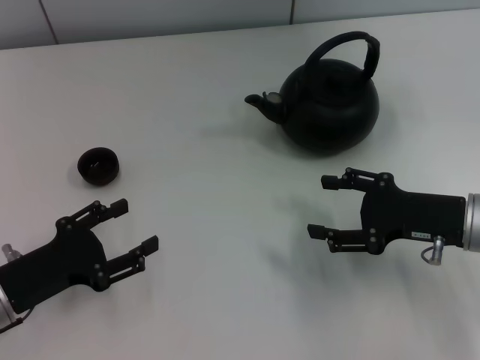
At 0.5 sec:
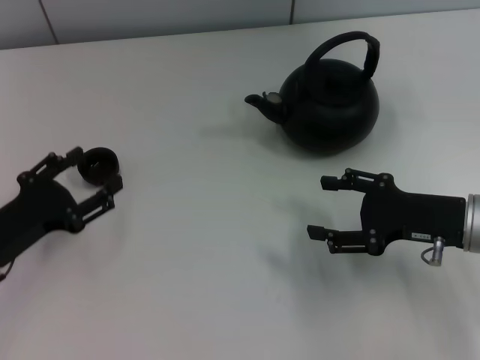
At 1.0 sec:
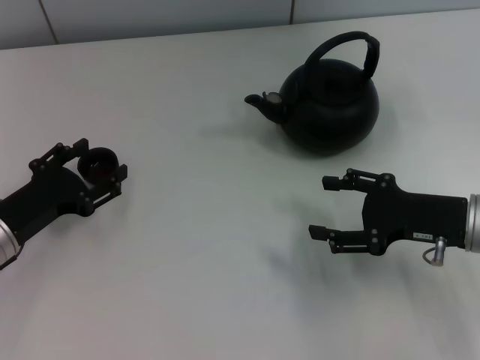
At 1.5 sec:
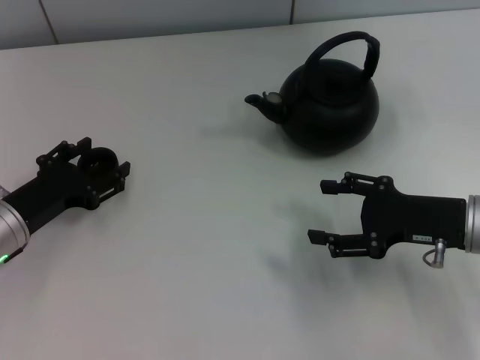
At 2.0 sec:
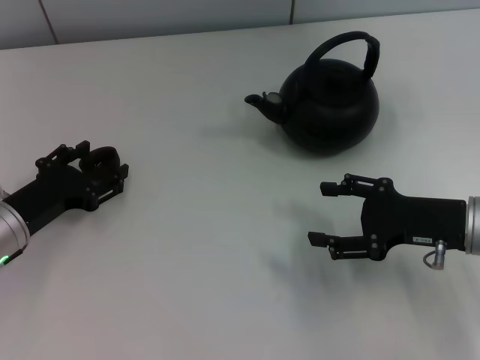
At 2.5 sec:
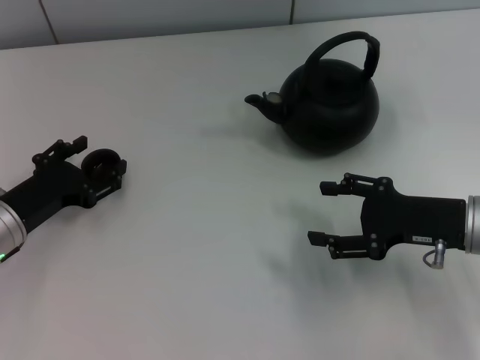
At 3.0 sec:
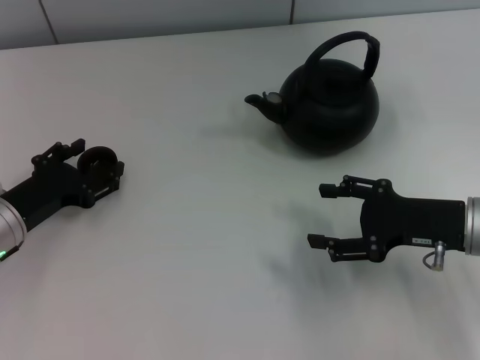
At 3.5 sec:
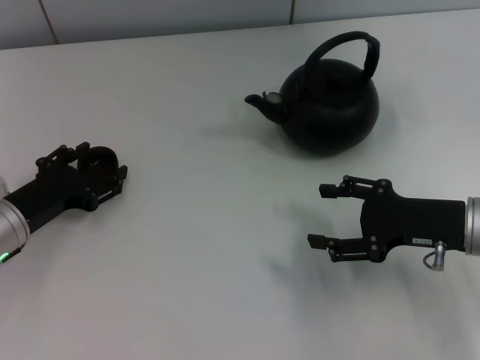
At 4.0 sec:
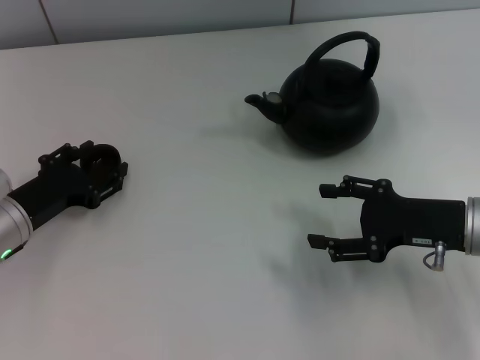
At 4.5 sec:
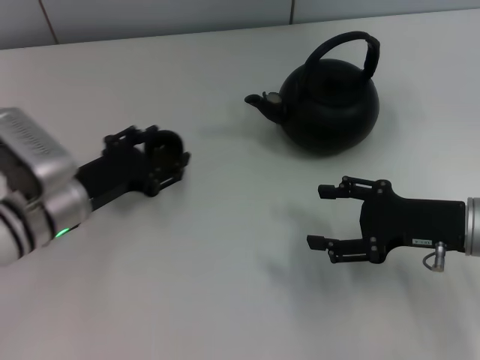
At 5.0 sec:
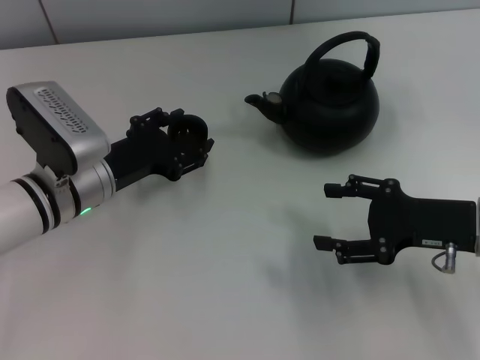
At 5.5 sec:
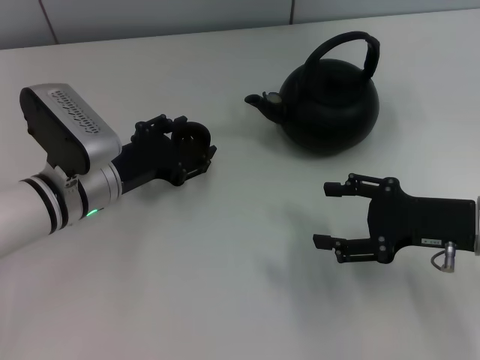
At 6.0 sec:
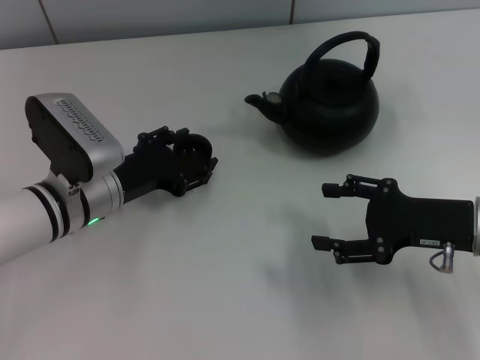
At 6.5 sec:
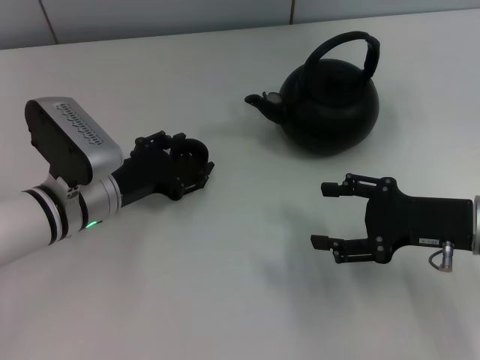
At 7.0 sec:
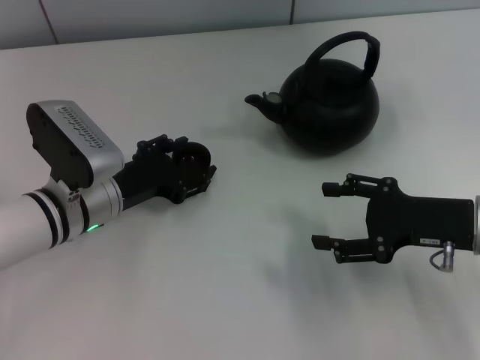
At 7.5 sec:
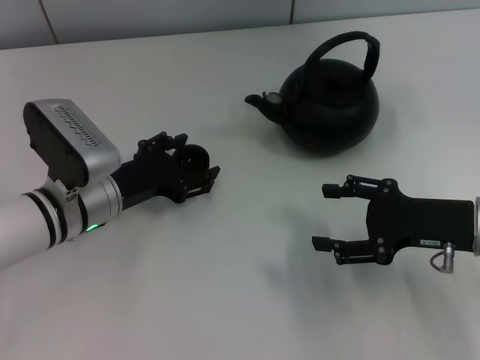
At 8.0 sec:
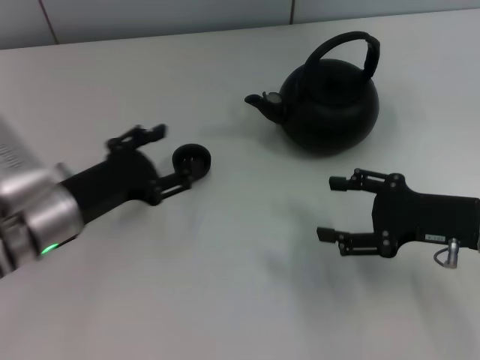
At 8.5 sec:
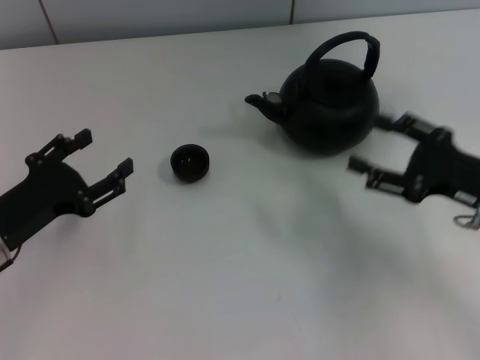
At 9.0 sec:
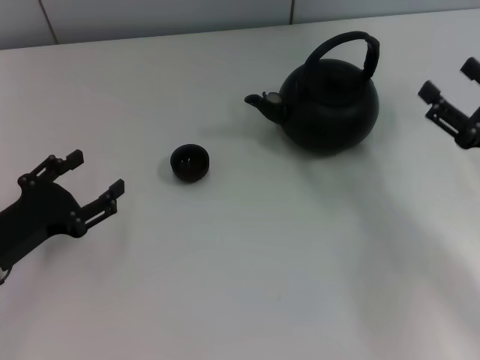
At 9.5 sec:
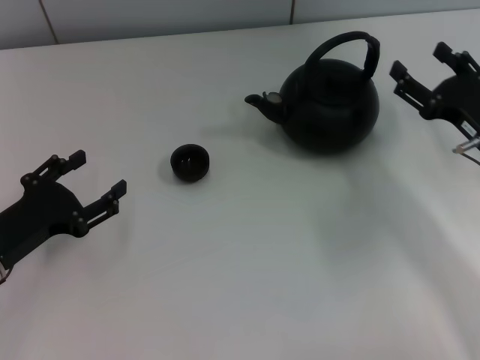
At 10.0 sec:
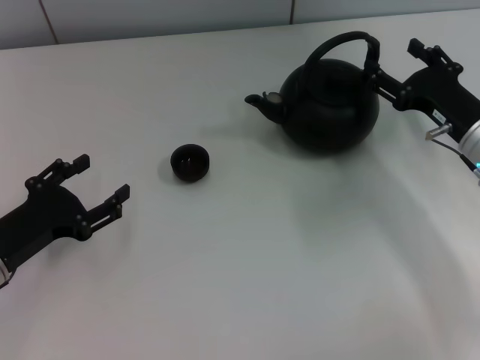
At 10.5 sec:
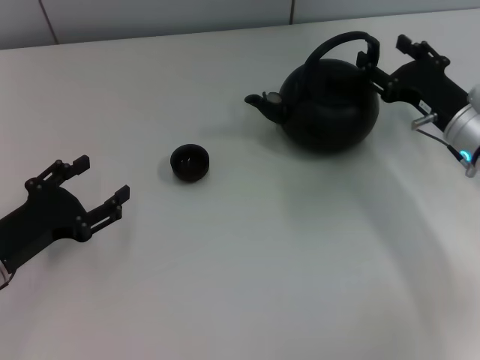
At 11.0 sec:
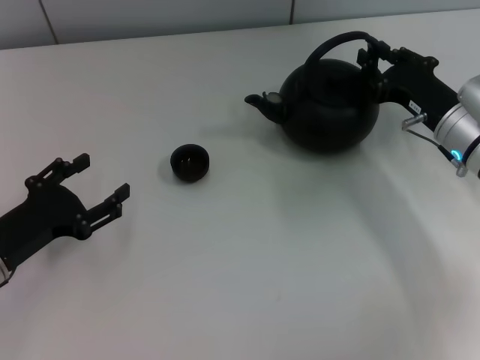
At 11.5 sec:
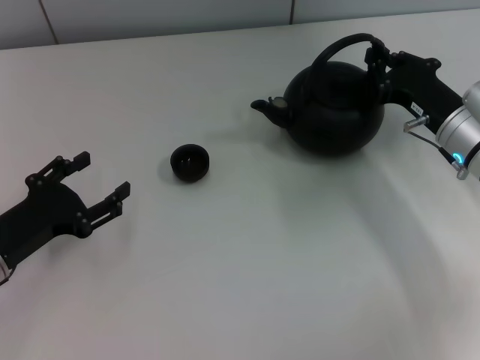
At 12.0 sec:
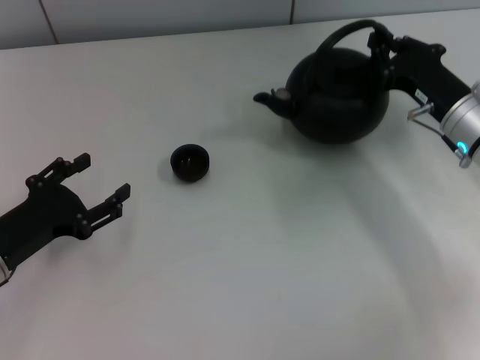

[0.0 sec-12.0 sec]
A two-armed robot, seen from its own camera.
Task of the whole recording: Grasp the handle of the teapot with one hand and pour tea into the teacup.
Step, 0.0 sec to 4.5 sec: Pick up the teacup with the left gripper.
Step, 5.0 sec to 8.0 sec: Place the teacup in the center of view with the left gripper.
0.0 sec to 2.0 sec: The left gripper shifts approximately 5 cm forward.
2.0 sec to 4.0 sec: The left gripper closes.
4.0 sec to 6.0 sec: The left gripper travels to the right by approximately 10 cm.
6.0 sec to 8.0 sec: The left gripper ends up some 5 cm from where it was, and opens its fingers.
8.0 sec to 10.0 sec: The left gripper travels to the left by about 5 cm, while the right gripper travels forward by some 5 cm.
10.0 sec to 12.0 sec: The right gripper closes up.

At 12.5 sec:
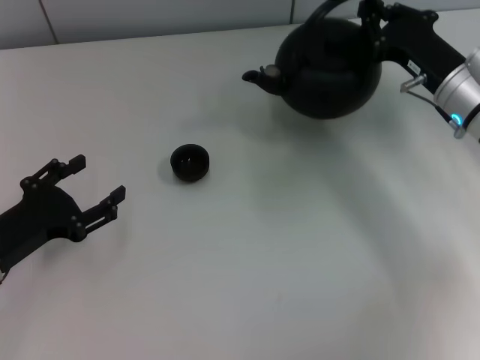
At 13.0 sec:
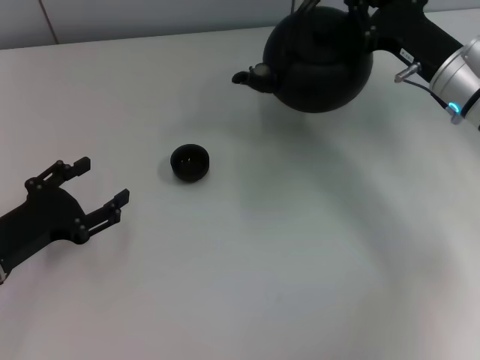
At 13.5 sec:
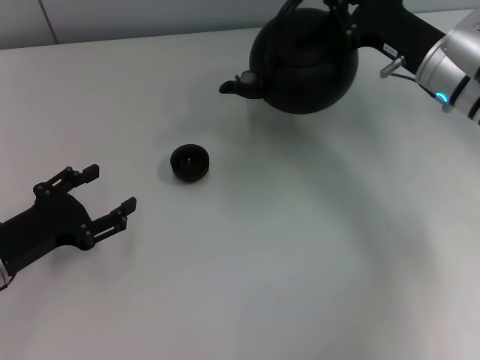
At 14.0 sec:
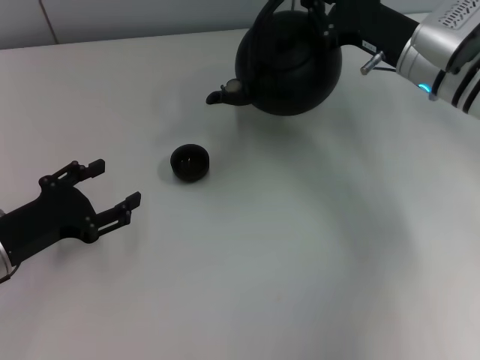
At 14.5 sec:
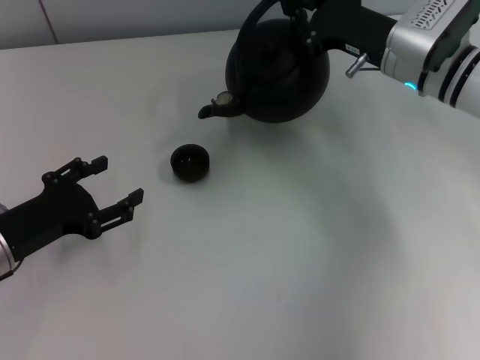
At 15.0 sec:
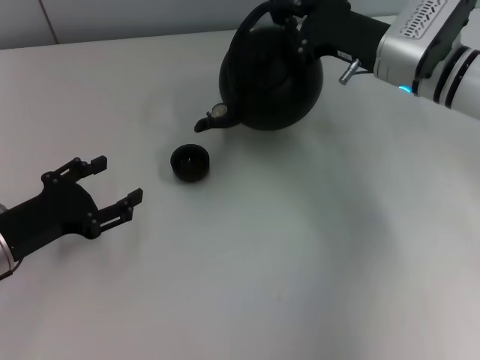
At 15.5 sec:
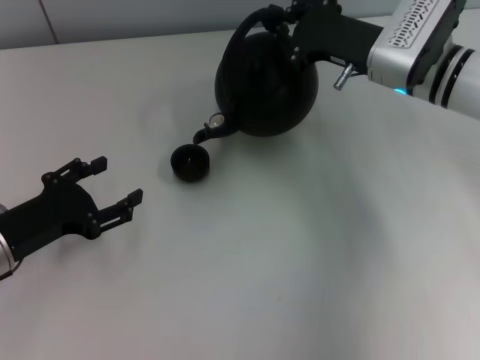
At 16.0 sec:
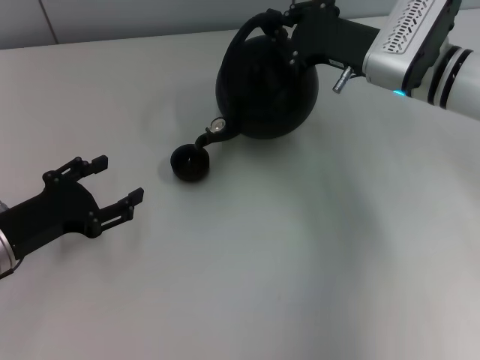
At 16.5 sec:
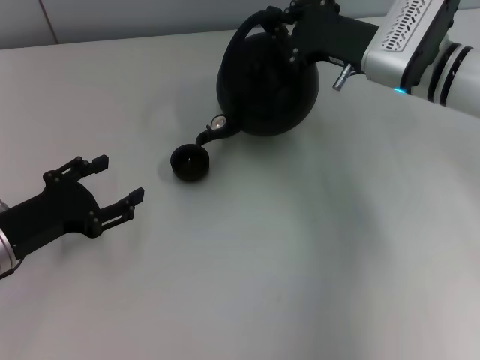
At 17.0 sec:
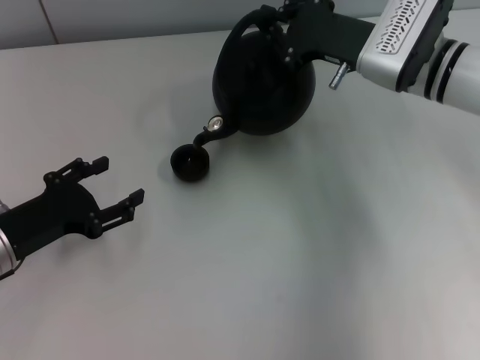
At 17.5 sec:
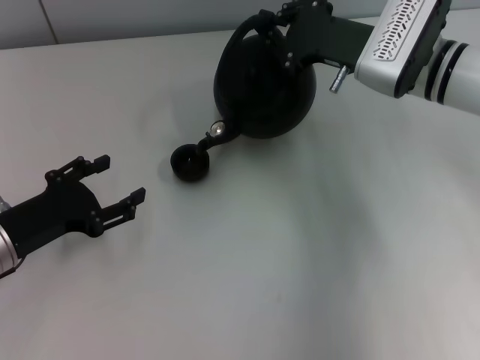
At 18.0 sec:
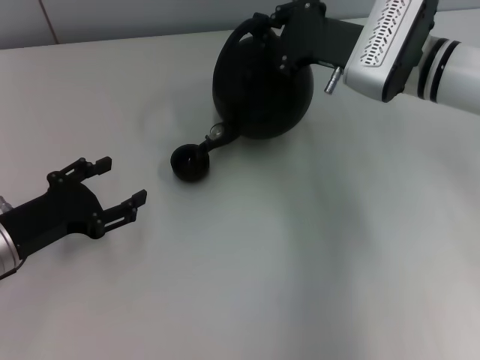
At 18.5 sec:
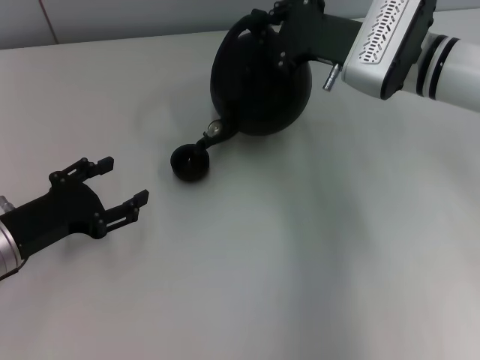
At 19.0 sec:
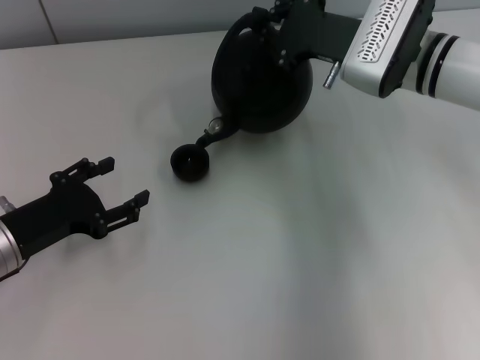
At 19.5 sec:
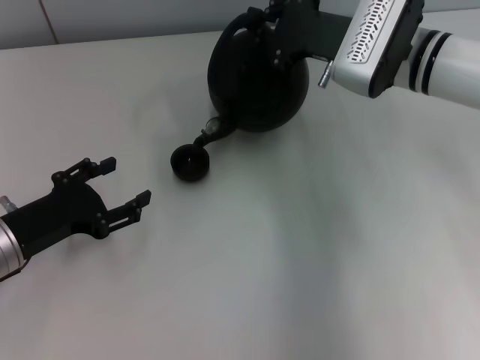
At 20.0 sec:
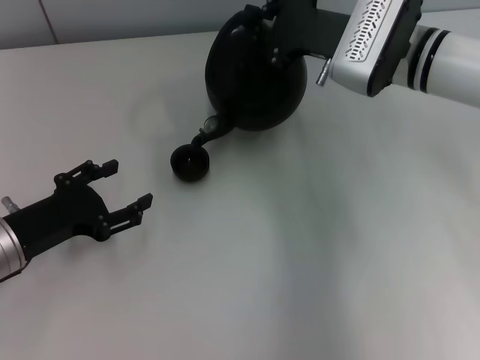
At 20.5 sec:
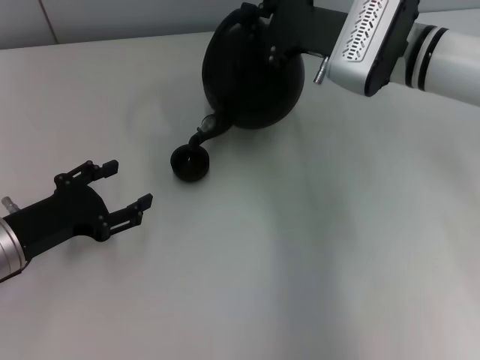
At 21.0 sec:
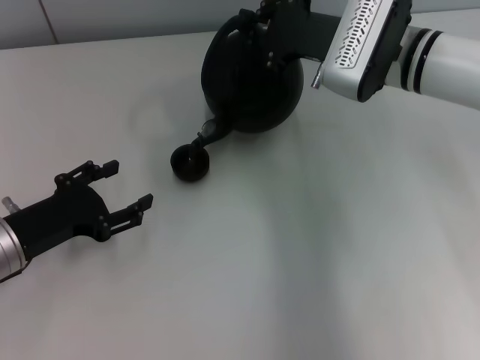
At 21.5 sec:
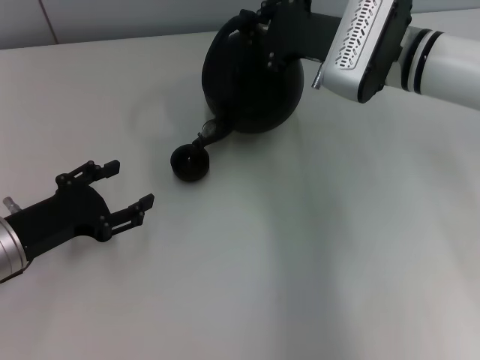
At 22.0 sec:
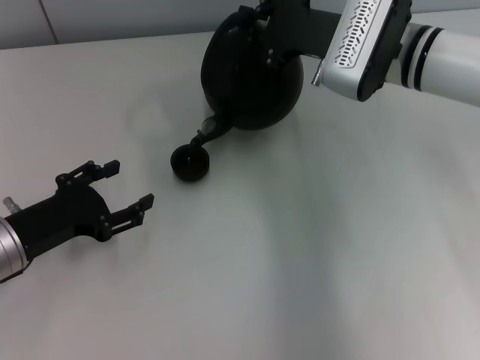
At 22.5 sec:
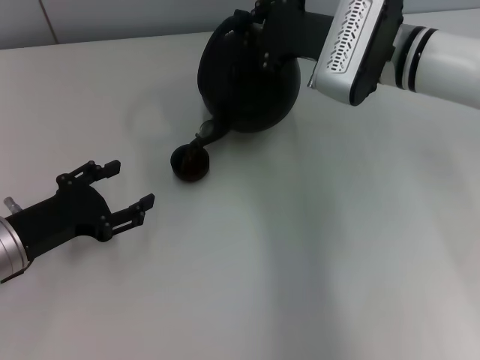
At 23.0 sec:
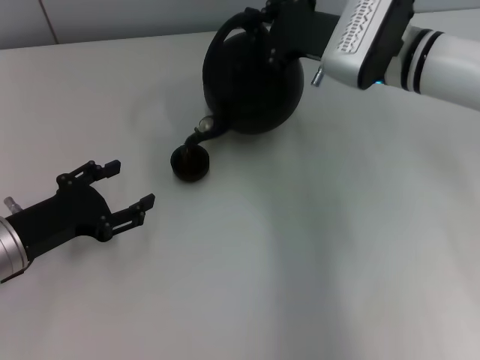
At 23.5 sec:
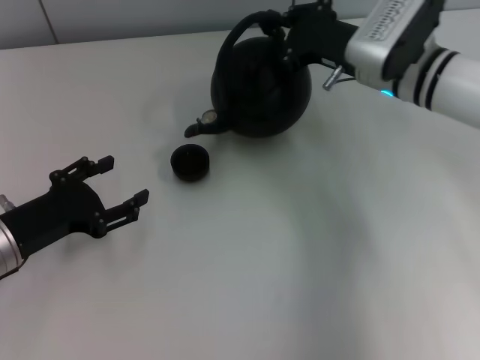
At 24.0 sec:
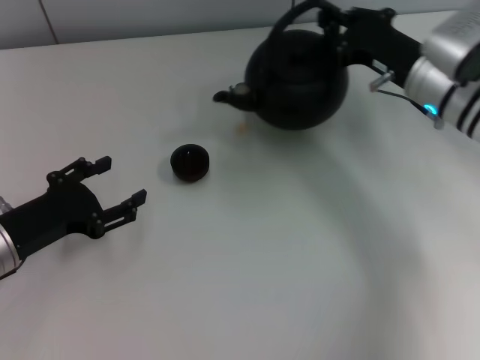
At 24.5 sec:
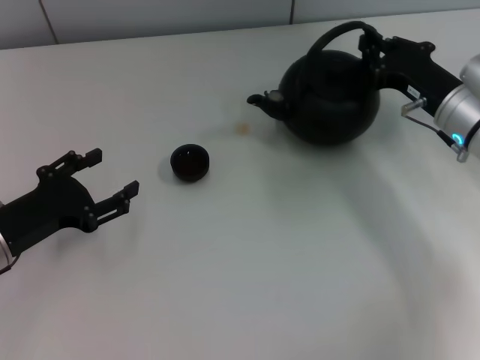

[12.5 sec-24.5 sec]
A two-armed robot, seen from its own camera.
Task of the whole recording: Grasp the handle of the teapot with one hand and pour tea into the teacup.
12.5 sec to 14.5 sec: The right gripper ends up approximately 5 cm from where it was.
14.5 sec to 18.5 sec: There are only small adjustments of the grippers.
18.5 sec to 20.5 sec: Both grippers stay about where they are.
20.5 sec to 22.5 sec: Both grippers stay put.
22.5 sec to 24.5 sec: The right gripper is displaced to the right, downward and backward by roughly 15 cm.

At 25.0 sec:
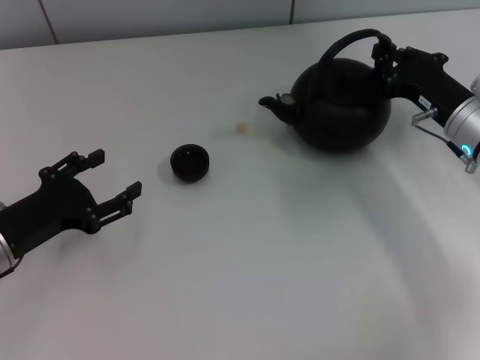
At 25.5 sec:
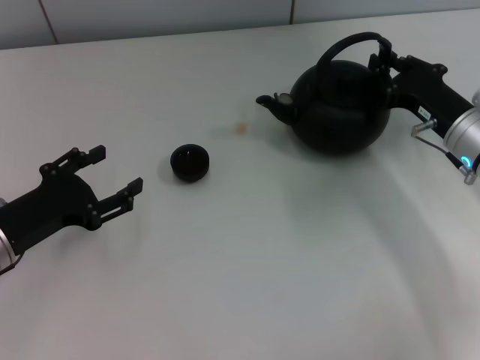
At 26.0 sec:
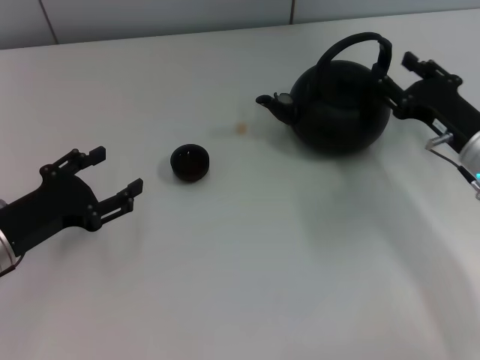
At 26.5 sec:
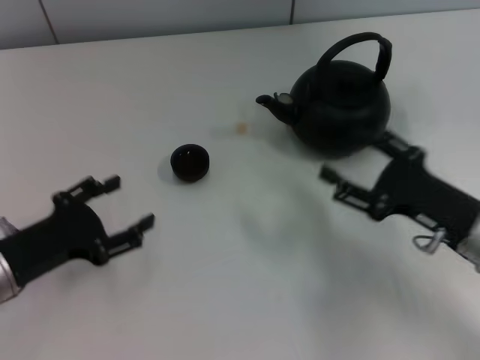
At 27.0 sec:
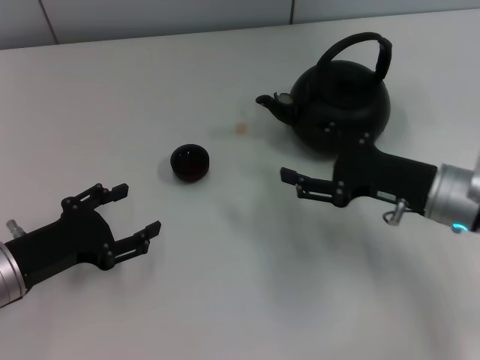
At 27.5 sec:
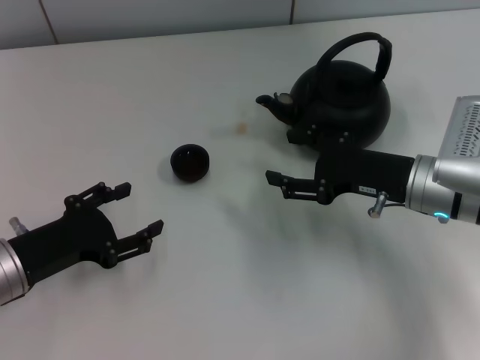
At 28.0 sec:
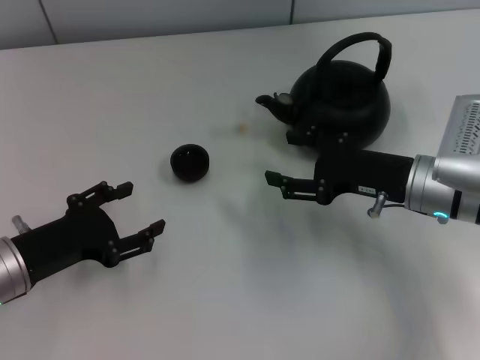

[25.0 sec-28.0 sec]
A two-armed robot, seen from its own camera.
Task of the whole recording: Grasp the handle of the teapot with one hand and pour tea into the teacup.
25.0 sec to 26.5 sec: The right gripper shifts approximately 10 cm backward, and opens up.
26.5 sec to 28.0 sec: The right gripper travels forward by about 5 cm.
